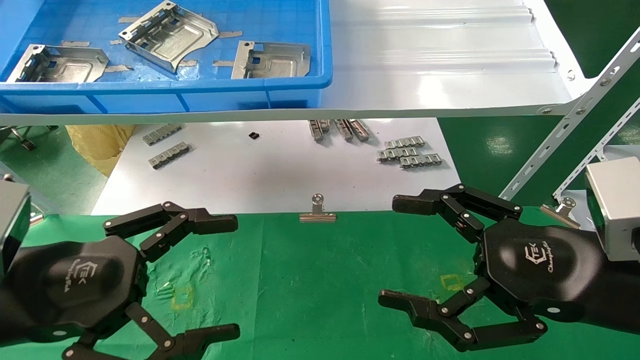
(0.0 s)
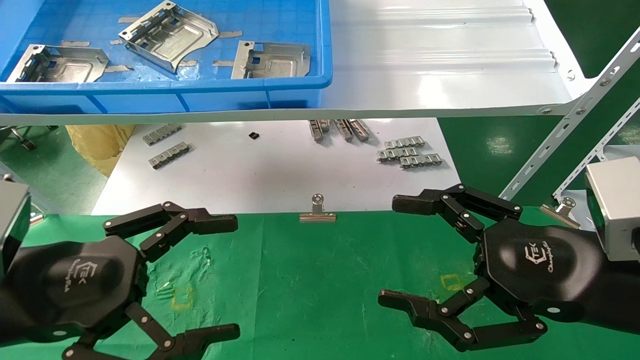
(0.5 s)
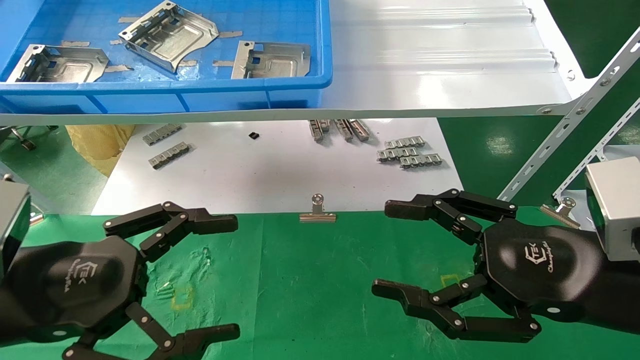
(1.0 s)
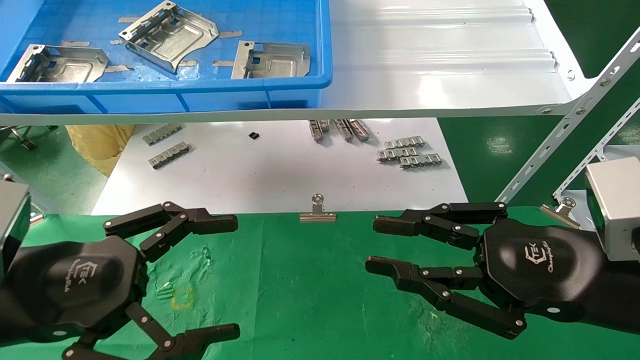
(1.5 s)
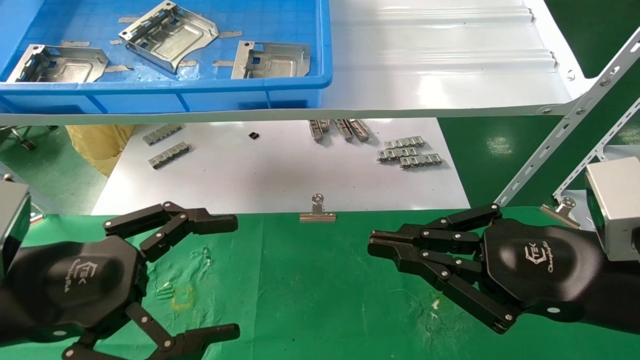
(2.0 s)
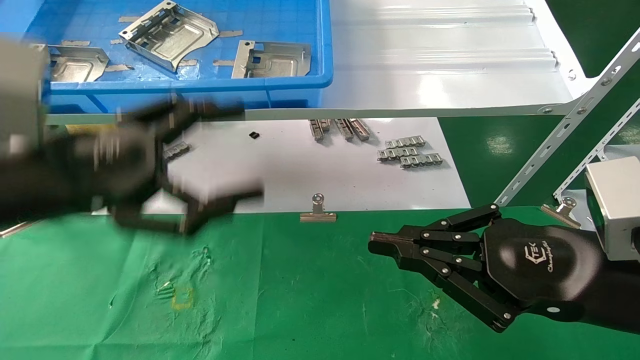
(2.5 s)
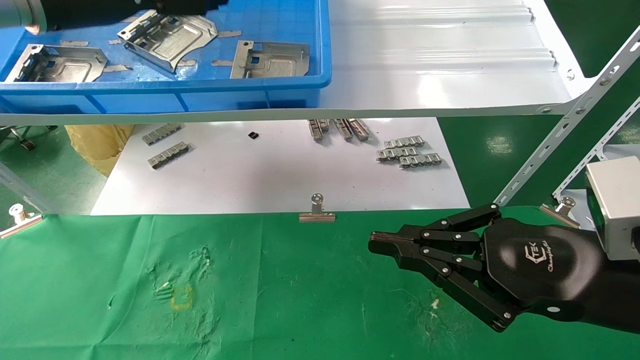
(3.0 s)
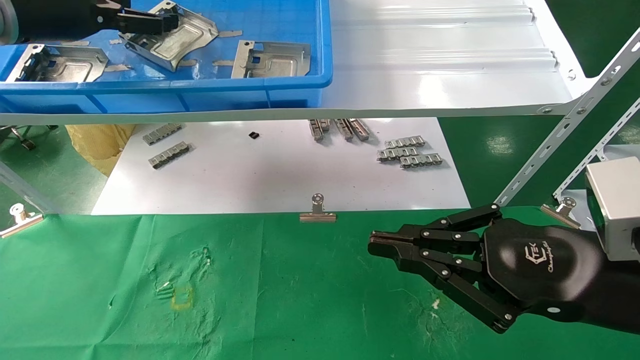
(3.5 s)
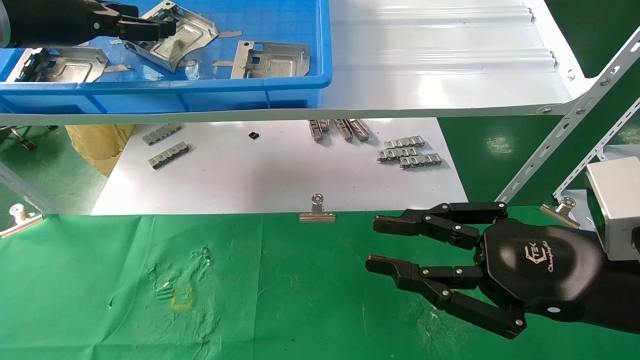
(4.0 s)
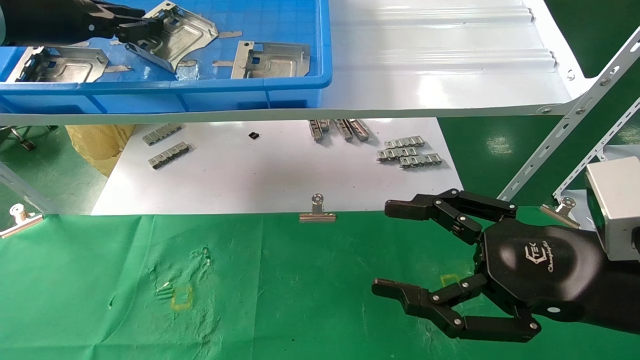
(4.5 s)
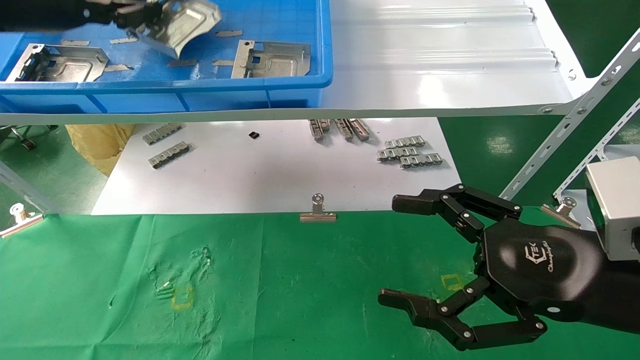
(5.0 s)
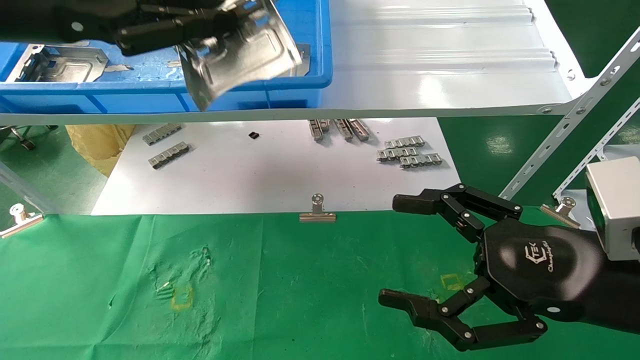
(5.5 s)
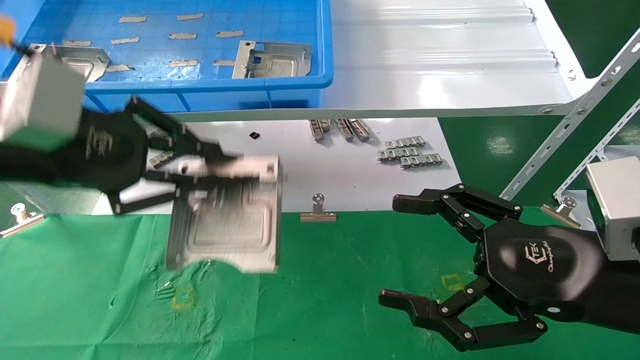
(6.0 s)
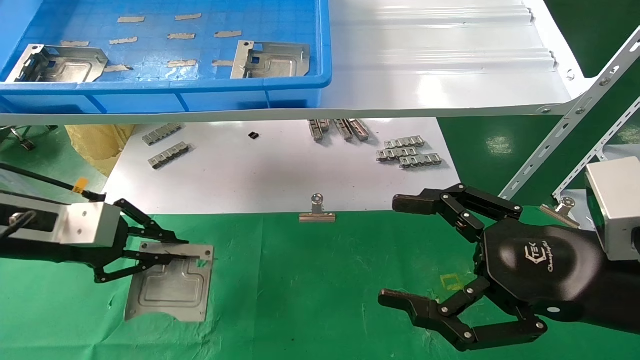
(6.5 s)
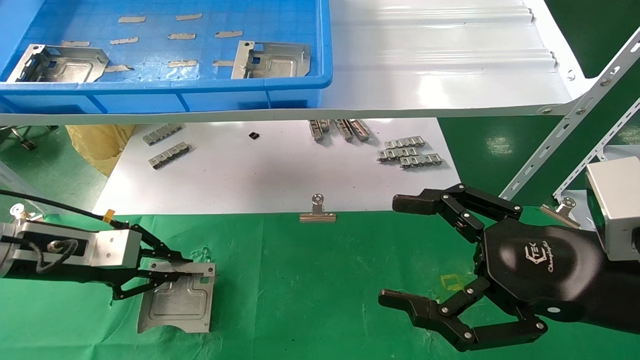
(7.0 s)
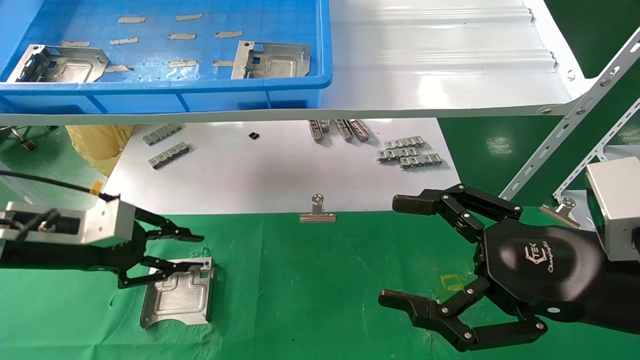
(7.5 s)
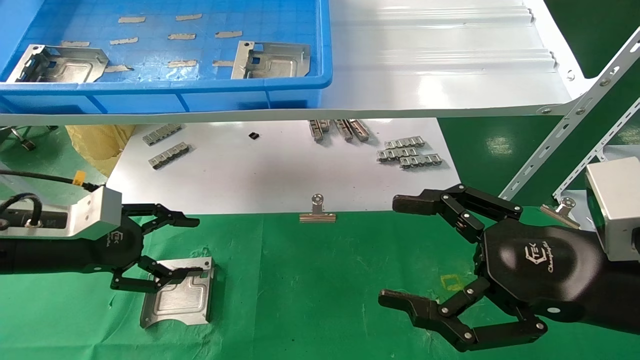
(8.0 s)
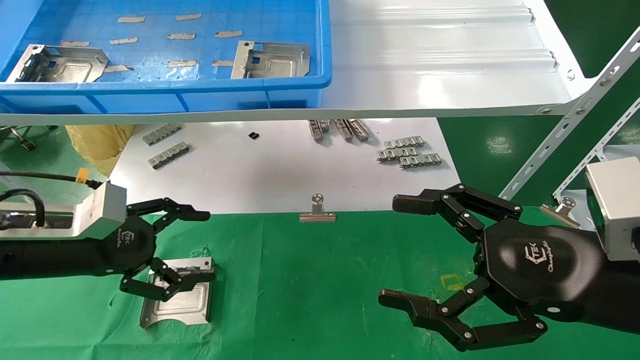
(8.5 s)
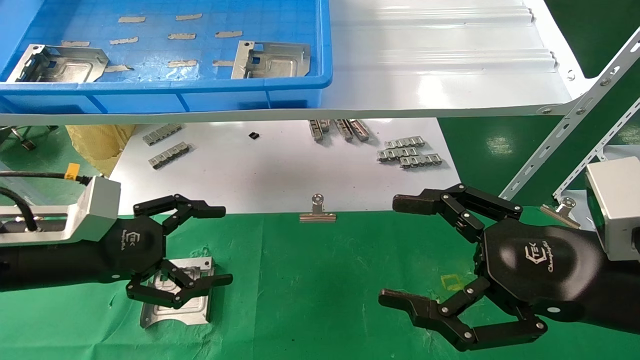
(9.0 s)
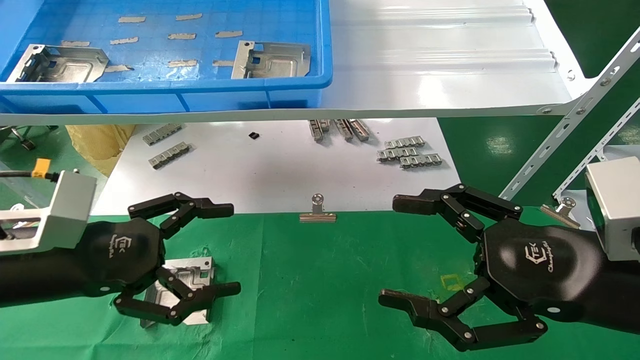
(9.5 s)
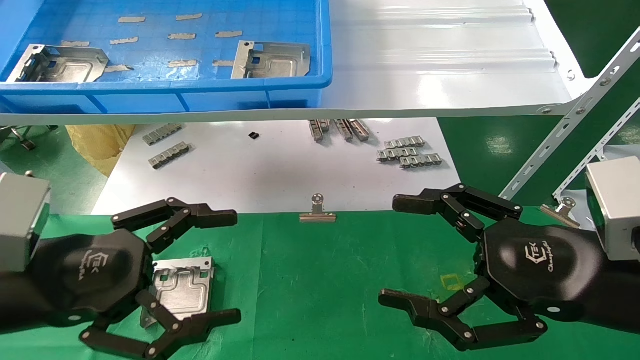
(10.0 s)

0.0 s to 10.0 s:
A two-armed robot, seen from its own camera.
Task of the whole recording: use the mechanical arm to pick up the parts and place them on the table.
Step, 3.0 to 4.5 s: Pick up the hard drive bracket from the feeding area.
Step, 5.0 to 7.0 s: Place the hard drive bracket into the box.
0.0 to 2.0 s: The right gripper closes up.
2.0 to 4.0 s: The left gripper shifts some 30 cm upward and forward.
4.0 to 6.0 s: The right gripper opens up; the left gripper shifts roughly 15 cm backward and downward, and closes.
6.0 to 8.0 s: The left gripper heads downward and to the left, covering roughly 15 cm, and opens its fingers.
8.0 to 10.0 s: The left gripper heads backward and to the right, covering roughly 15 cm, and opens up.
